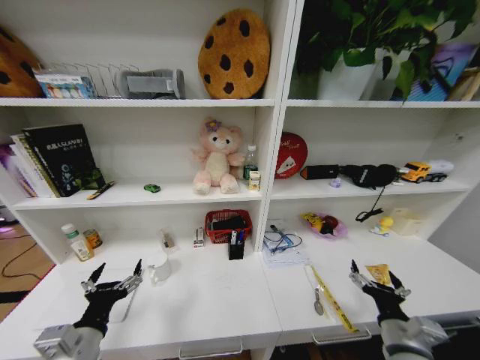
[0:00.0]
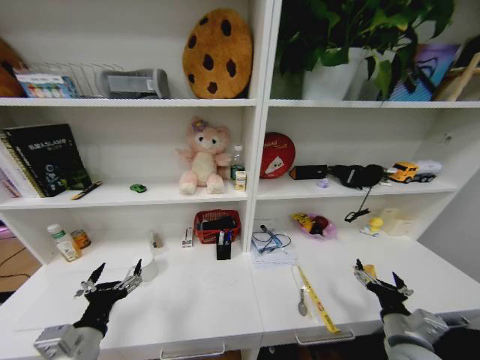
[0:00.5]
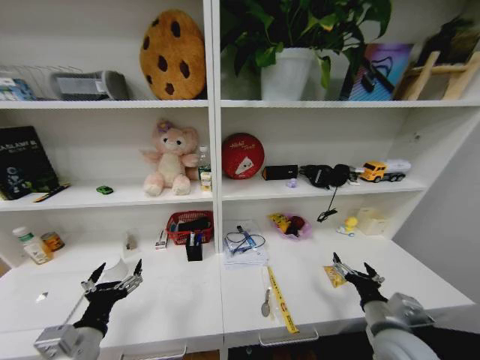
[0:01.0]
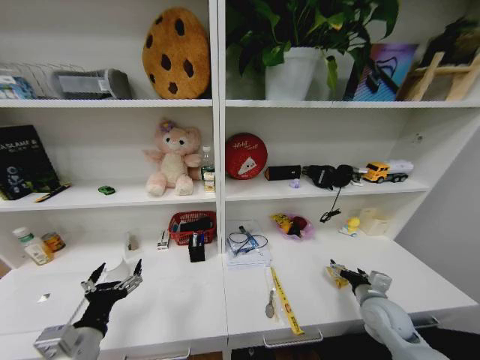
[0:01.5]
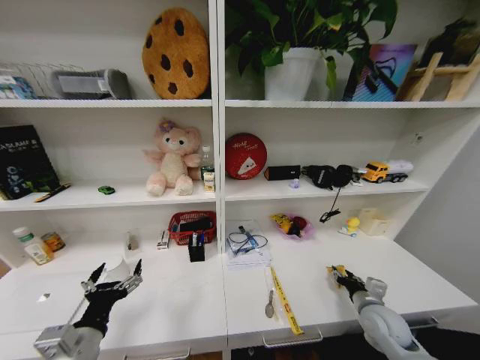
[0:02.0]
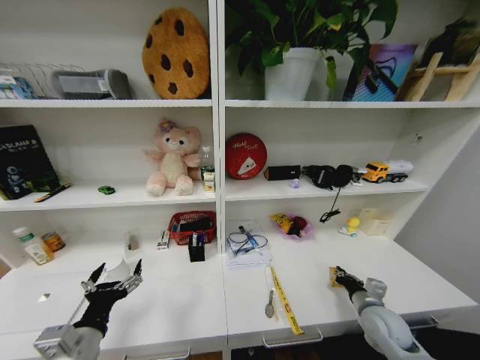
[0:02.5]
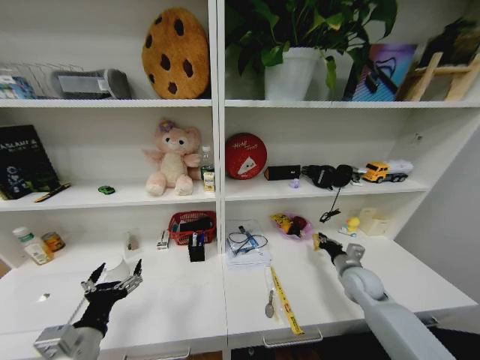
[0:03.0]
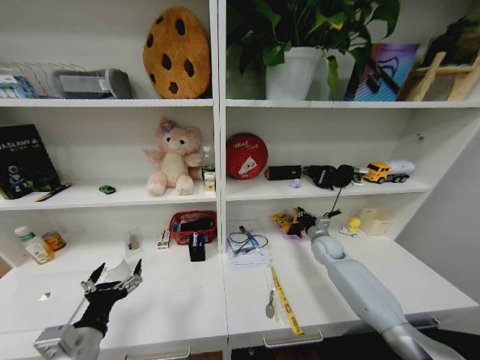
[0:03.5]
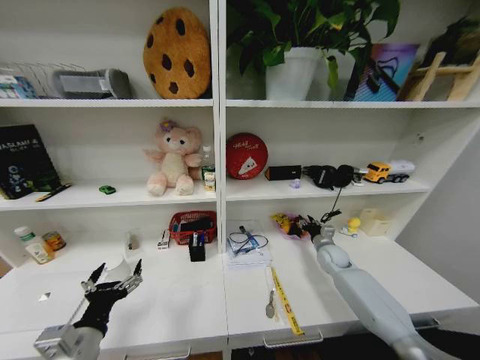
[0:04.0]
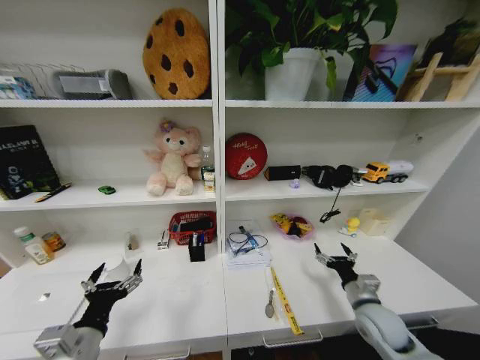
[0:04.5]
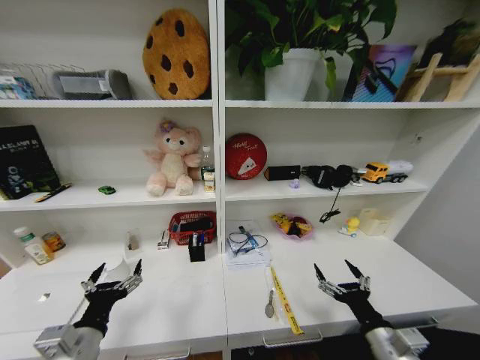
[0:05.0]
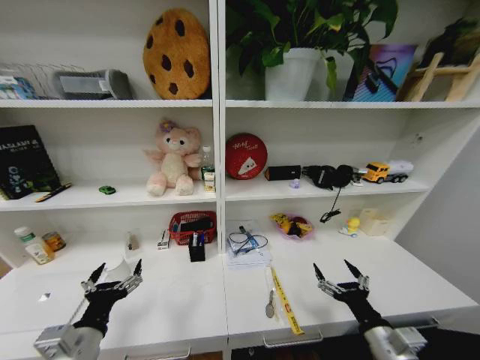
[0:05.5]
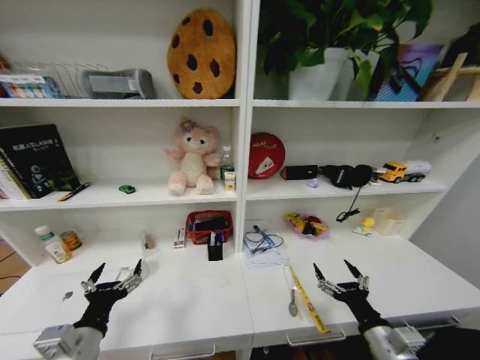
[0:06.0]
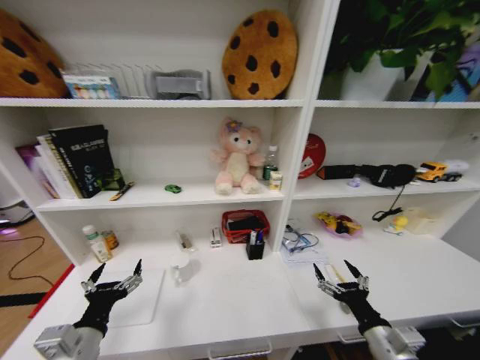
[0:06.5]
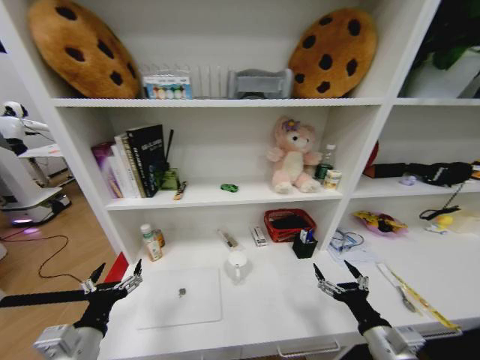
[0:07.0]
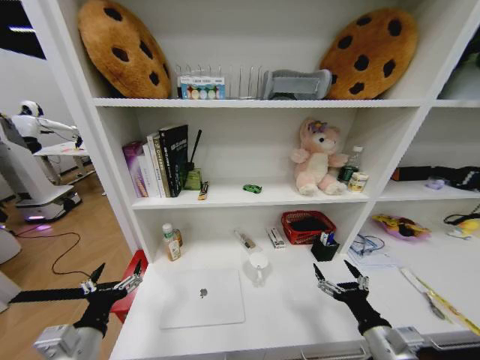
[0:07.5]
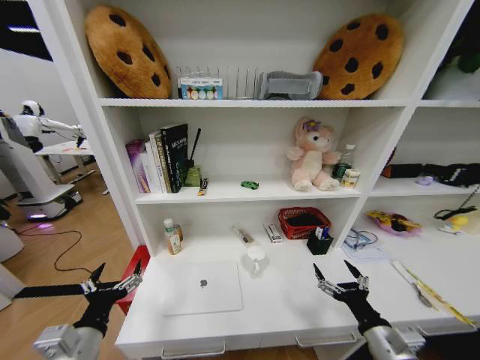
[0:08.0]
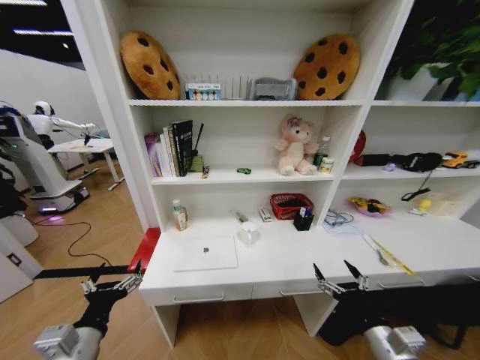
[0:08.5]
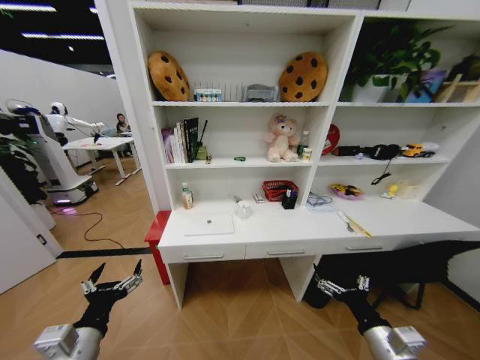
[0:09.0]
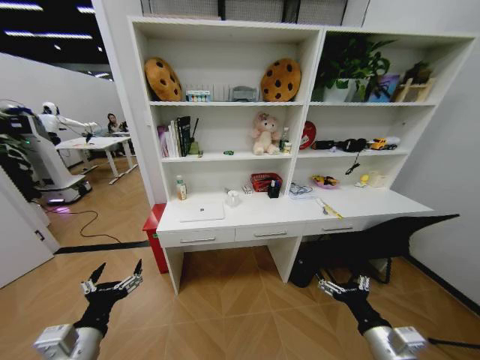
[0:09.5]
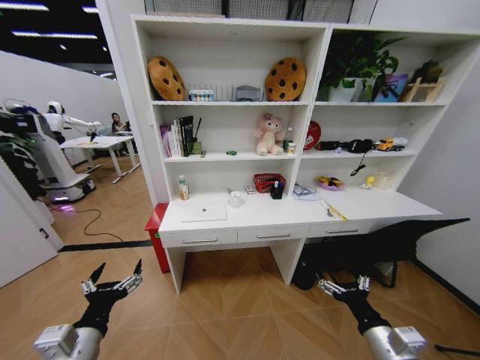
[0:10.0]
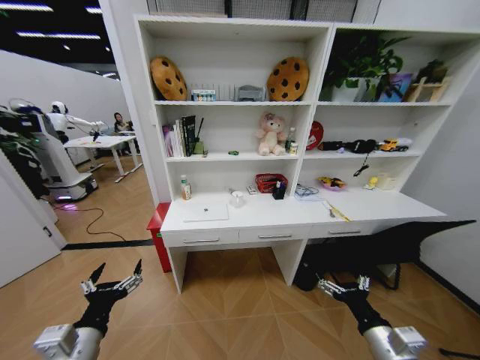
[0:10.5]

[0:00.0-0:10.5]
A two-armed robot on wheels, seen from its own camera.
Task of the whole recording: Organize the objects on the table.
0:00.0 to 0:02.0: The right gripper heads forward, to the right and downward, covering about 15 cm, and closes up.
0:02.0 to 0:04.0: The right gripper shifts approximately 20 cm forward, and closes and opens again.
0:04.0 to 0:06.5: The right gripper goes roughly 35 cm backward, and opens its fingers.
